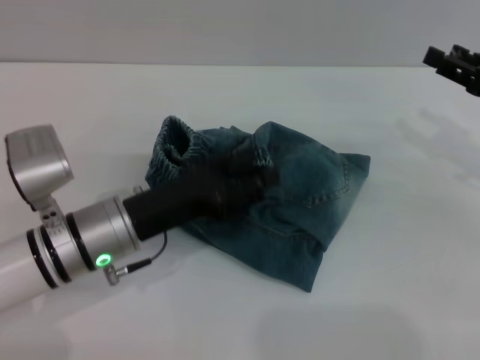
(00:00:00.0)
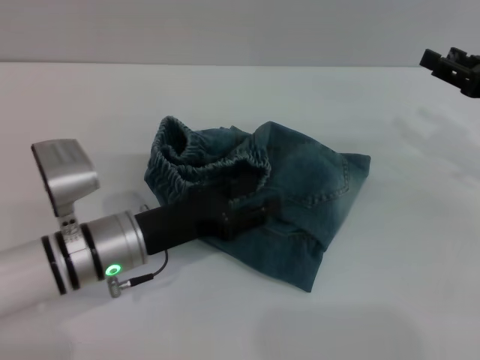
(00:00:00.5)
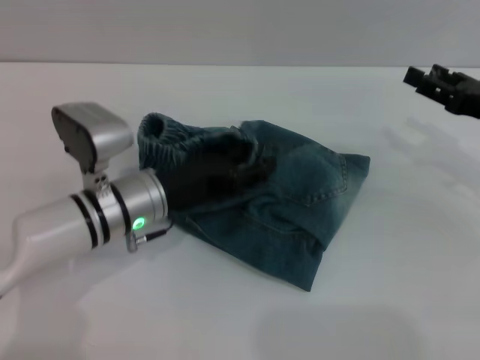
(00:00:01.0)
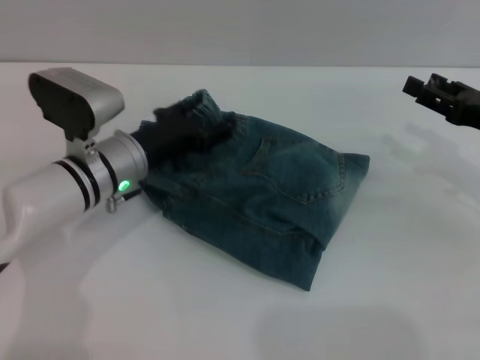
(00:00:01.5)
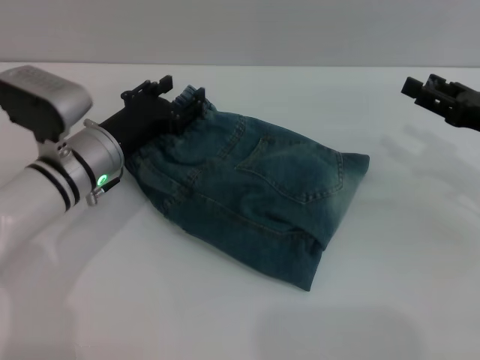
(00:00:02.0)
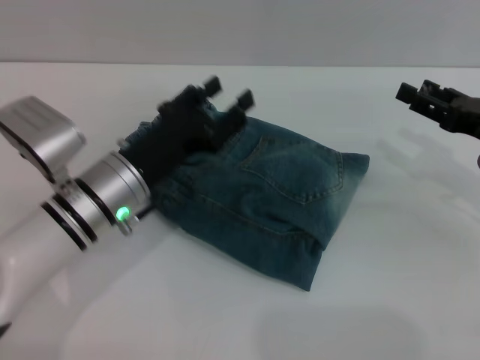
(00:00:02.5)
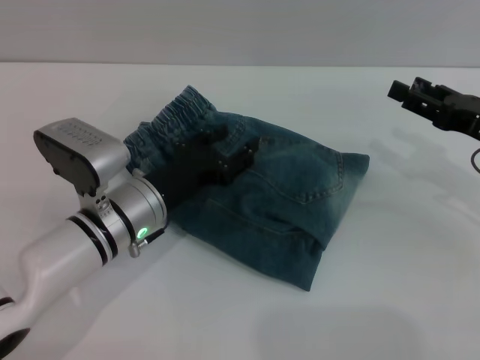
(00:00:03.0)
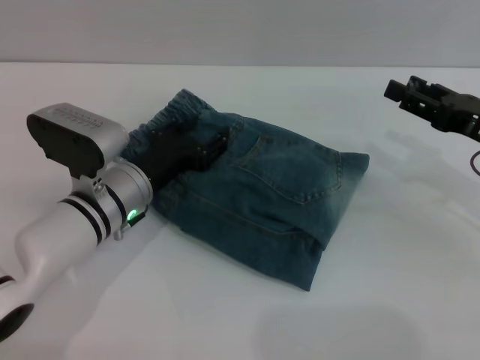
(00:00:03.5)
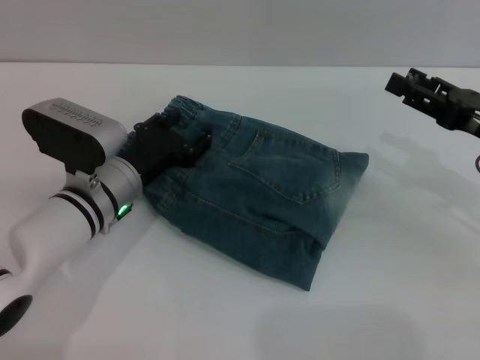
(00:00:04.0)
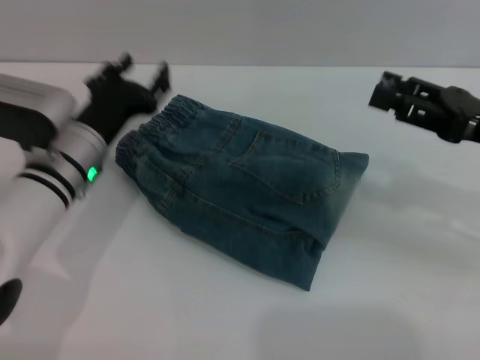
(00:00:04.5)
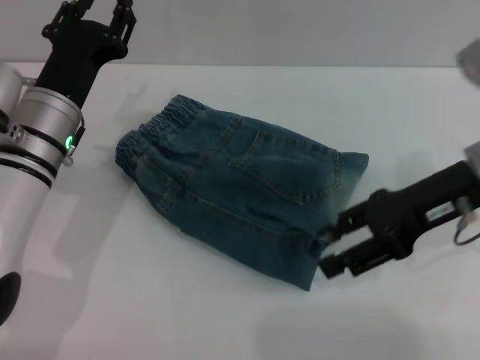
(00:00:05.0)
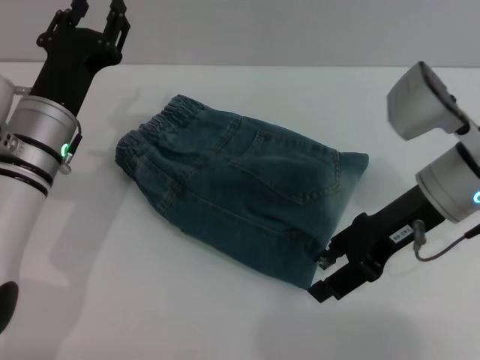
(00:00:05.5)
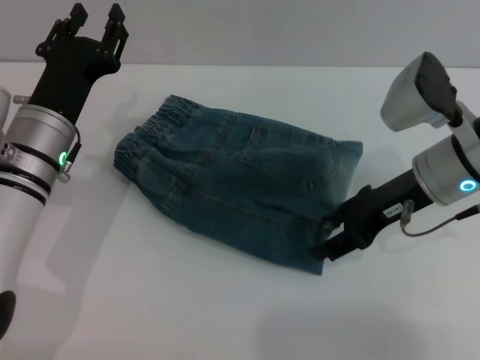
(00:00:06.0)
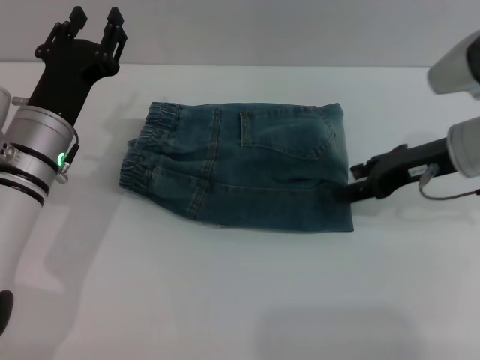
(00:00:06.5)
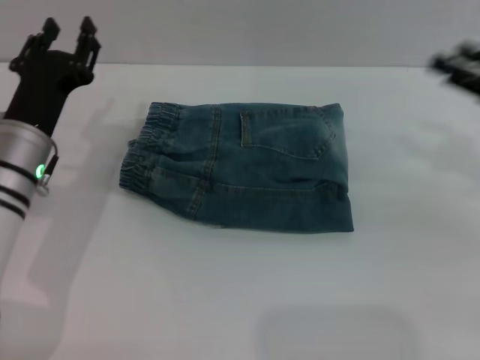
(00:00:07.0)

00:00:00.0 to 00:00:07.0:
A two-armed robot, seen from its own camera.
Step, 00:00:00.0 to 00:00:06.5: Place the folded trousers onto the center area with the right grippers.
00:00:00.0 to 00:00:02.0: The left gripper shifts approximately 10 cm forward.
00:00:03.5 to 00:00:05.0: The left gripper heads upward, covering roughly 5 cm. The right gripper is displaced to the left and upward by roughly 10 cm.
00:00:05.0 to 00:00:07.0: The right gripper goes some 10 cm to the right.

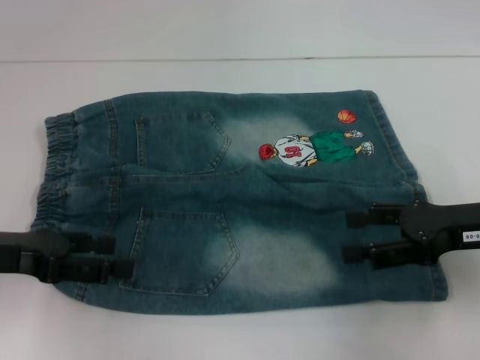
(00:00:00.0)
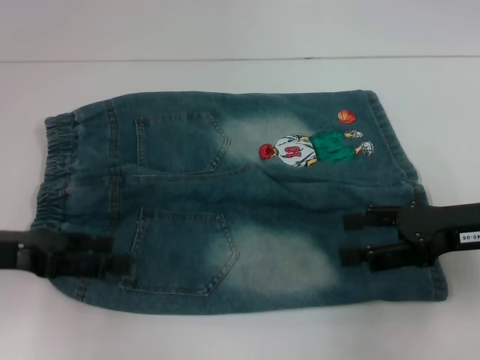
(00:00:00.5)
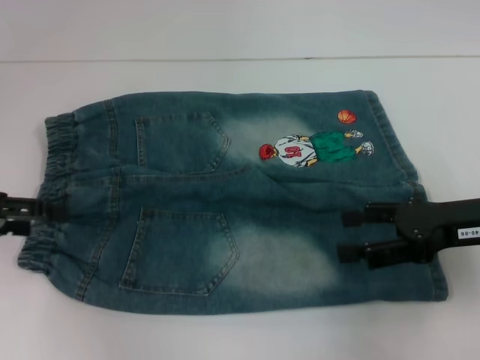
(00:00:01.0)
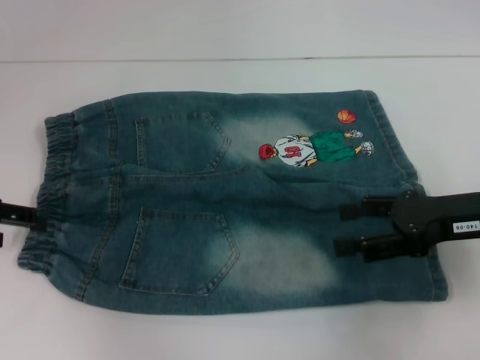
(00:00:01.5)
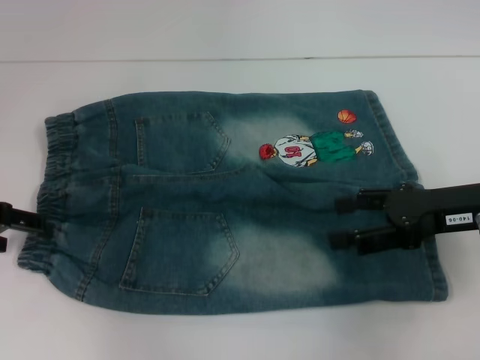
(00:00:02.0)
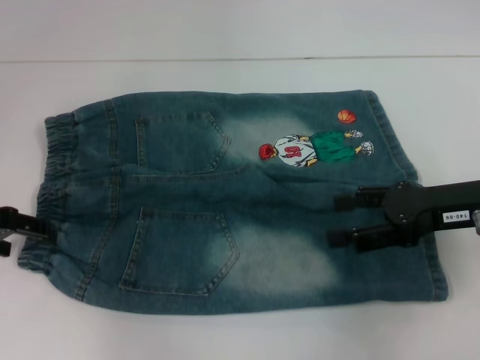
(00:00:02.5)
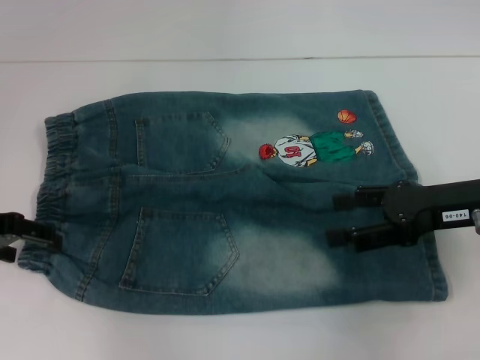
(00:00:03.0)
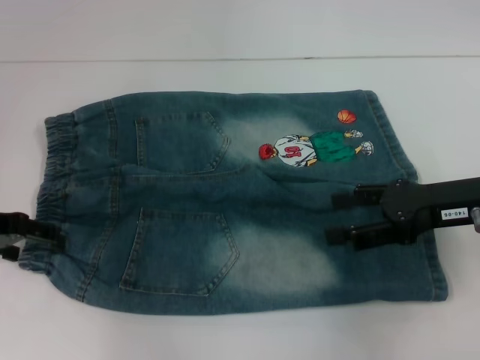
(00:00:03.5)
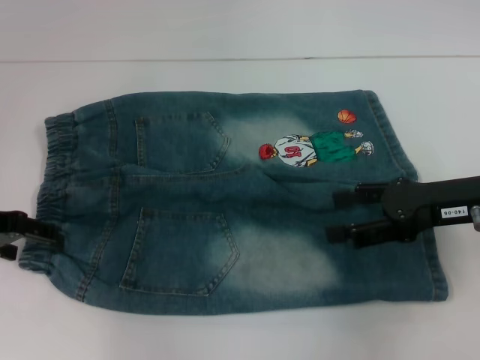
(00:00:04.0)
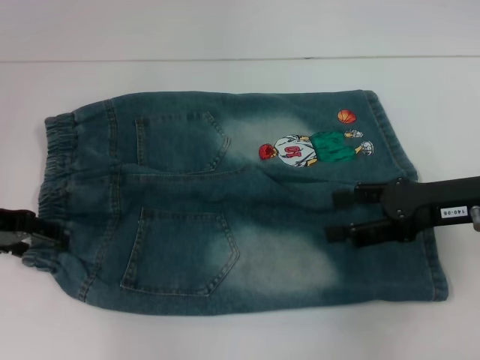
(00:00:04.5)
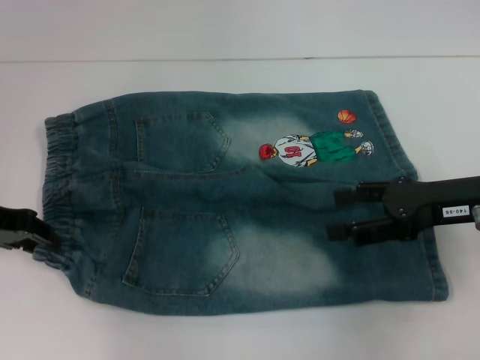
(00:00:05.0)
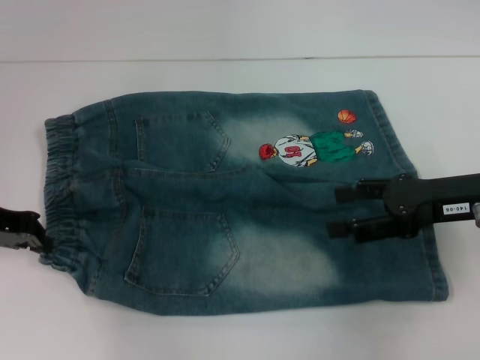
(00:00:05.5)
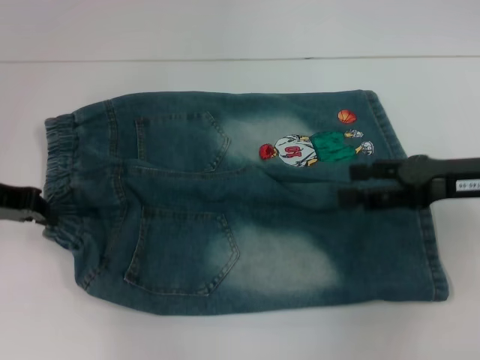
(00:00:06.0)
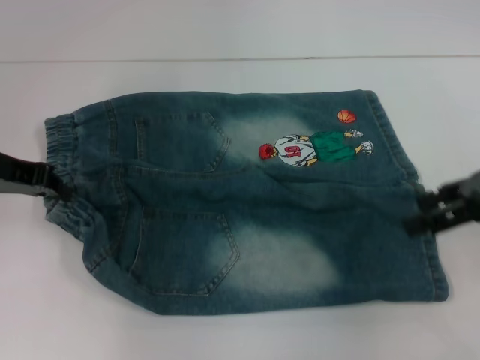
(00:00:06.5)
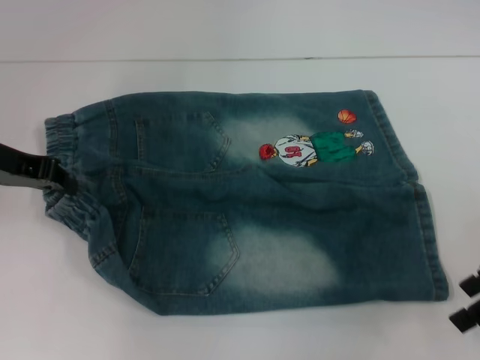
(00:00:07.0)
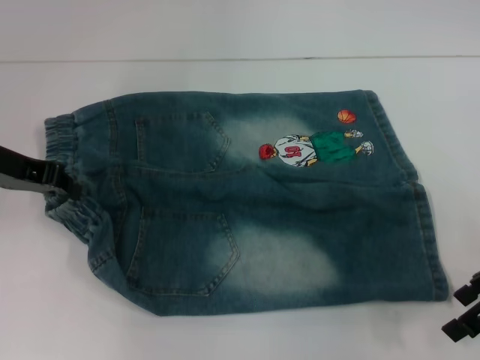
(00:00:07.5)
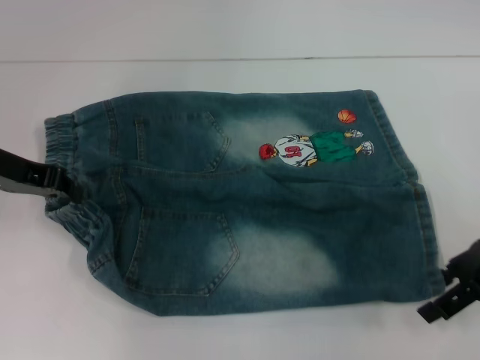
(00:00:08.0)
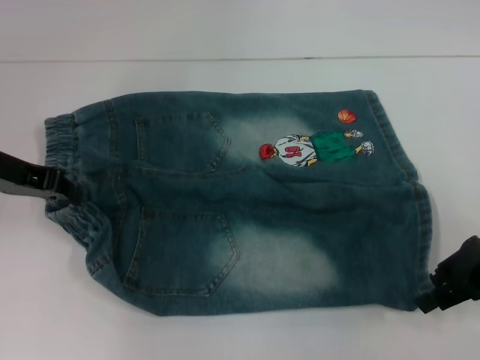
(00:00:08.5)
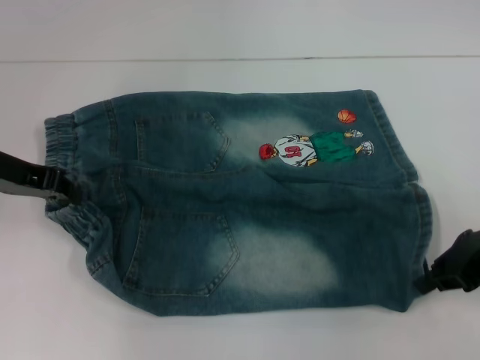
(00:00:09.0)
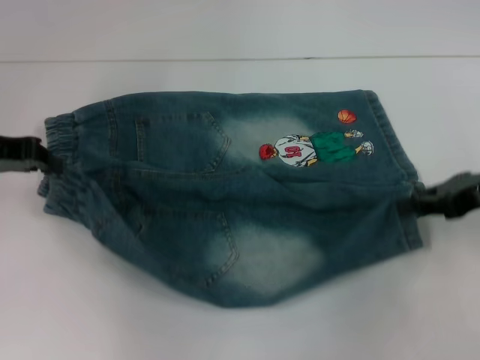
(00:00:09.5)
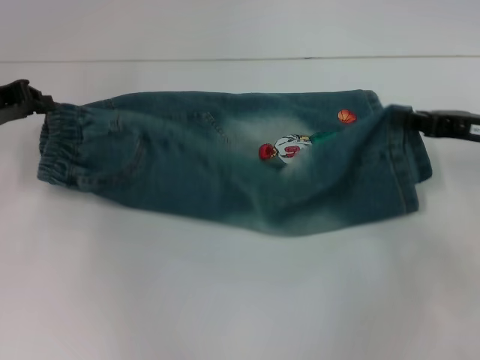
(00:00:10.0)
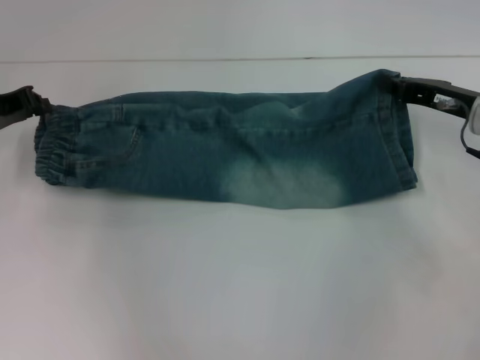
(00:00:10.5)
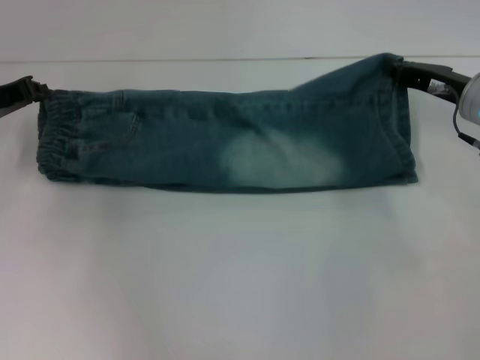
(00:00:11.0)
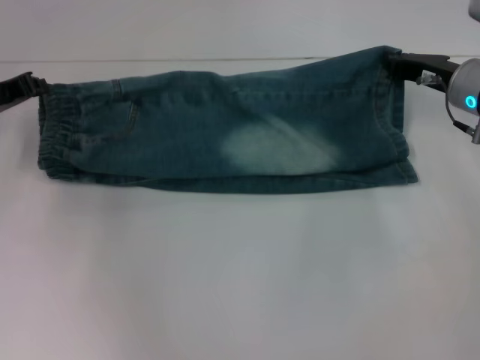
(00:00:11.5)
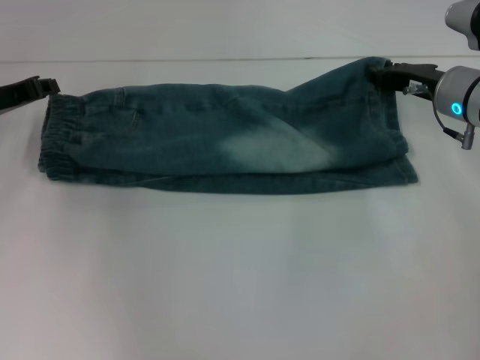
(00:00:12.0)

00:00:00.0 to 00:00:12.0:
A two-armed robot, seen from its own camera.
Step, 00:00:00.0 to 00:00:05.5: Hold the lower left waistband with your left hand.
Step, 00:00:06.0 to 00:00:08.5: Grab the lower right pant leg with your right hand.
00:00:00.0 to 00:00:02.0: The left gripper shifts approximately 5 cm forward.
00:00:02.0 to 00:00:04.0: The grippers stay close to where they were, moving slightly.
00:00:04.0 to 00:00:06.0: The left gripper closes up.
00:00:08.0 to 00:00:10.0: The right gripper closes.
00:00:10.0 to 00:00:12.0: The right gripper shifts approximately 10 cm forward and to the left.

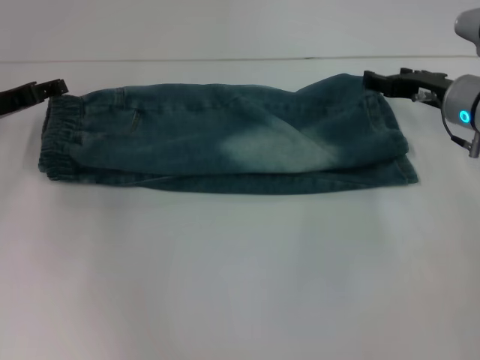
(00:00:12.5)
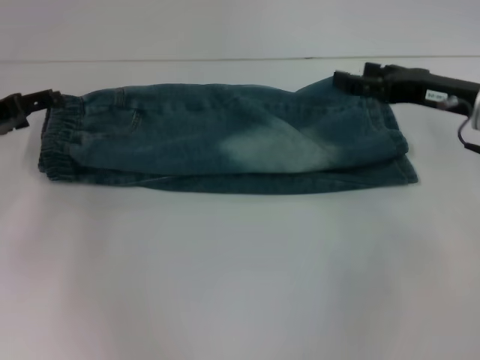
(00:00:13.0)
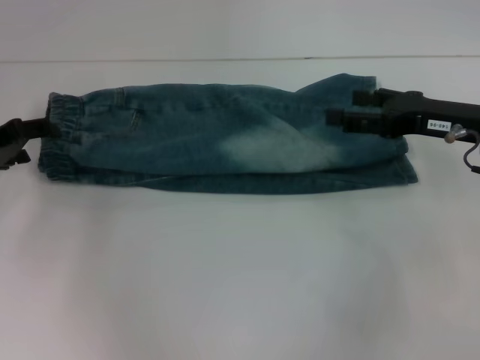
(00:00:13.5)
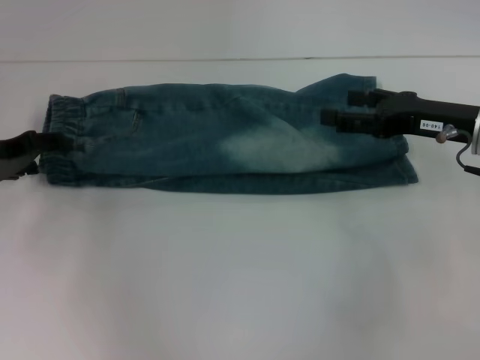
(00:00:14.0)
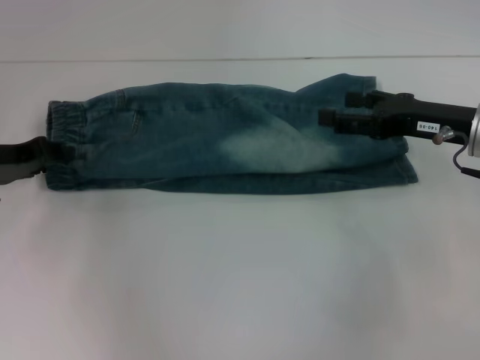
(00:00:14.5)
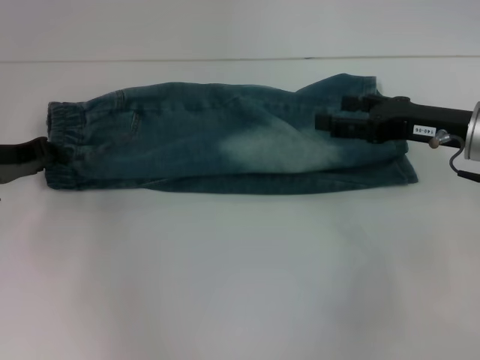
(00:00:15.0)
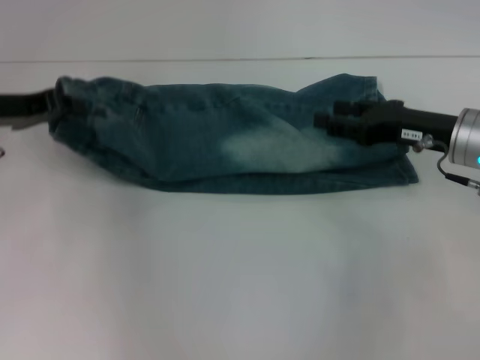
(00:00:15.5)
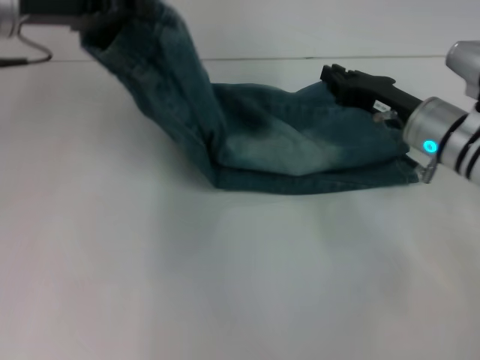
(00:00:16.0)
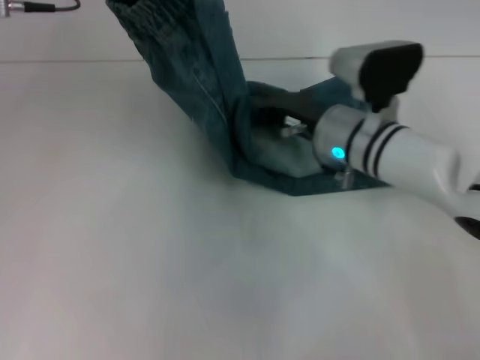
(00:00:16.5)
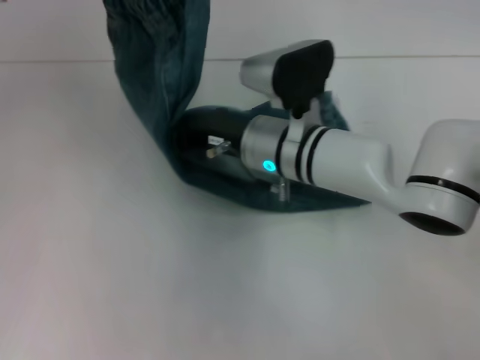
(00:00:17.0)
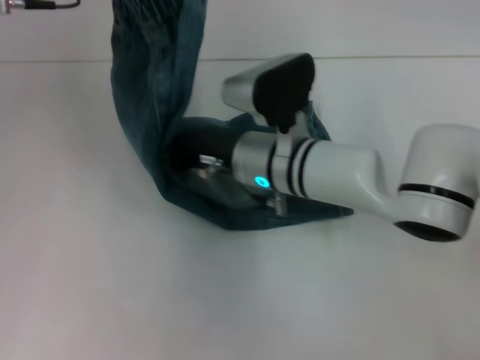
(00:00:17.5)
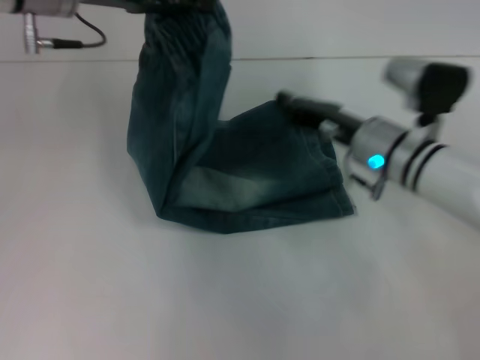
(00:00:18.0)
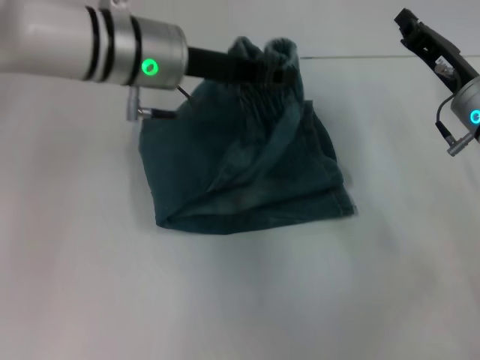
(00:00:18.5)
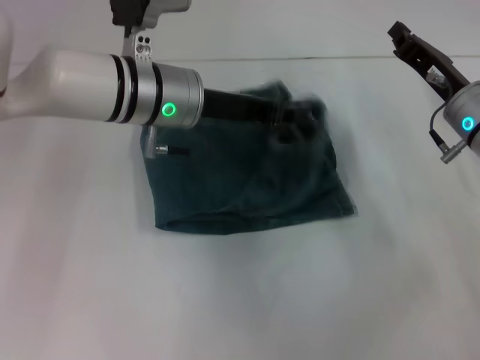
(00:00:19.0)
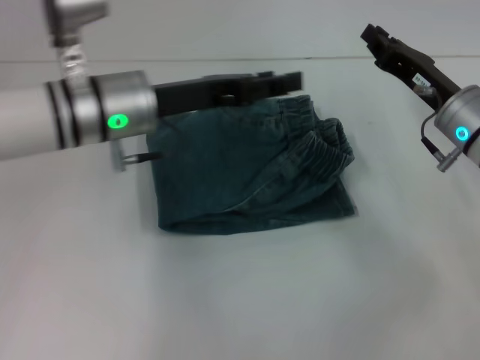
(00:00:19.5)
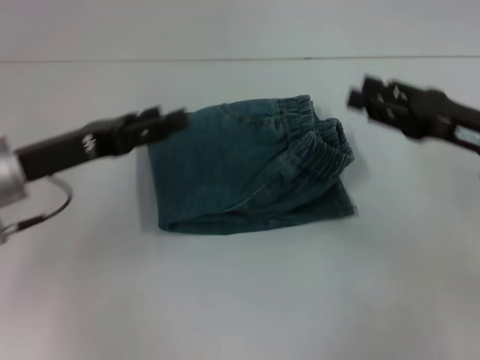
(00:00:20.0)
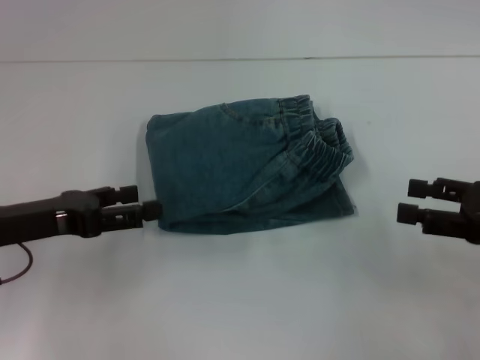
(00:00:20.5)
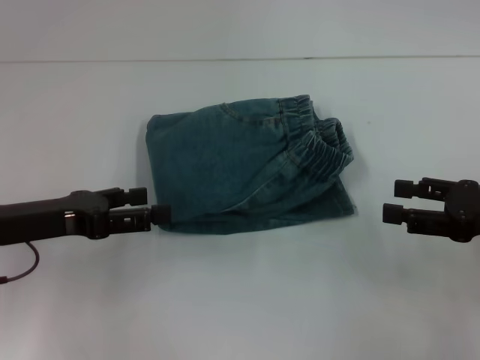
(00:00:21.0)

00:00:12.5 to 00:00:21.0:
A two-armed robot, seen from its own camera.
Step, 00:00:12.5 to 00:00:15.0: Hold the waistband with your left hand.
Step, 00:00:15.5 to 00:00:17.0: Press the middle of the pants with your right hand.
Step, 00:00:17.5 to 00:00:19.0: Fold to the right with your left hand.
00:00:12.5 to 00:00:14.5: The right gripper goes roughly 5 cm backward, and opens.
00:00:14.5 to 00:00:16.5: The left gripper is displaced upward and to the right by about 20 cm, and closes up. The right gripper is displaced to the left by some 15 cm, and closes up.
00:00:16.5 to 00:00:19.0: The left gripper is displaced downward and to the right by about 15 cm. Meanwhile the right gripper moves to the right, about 10 cm.
00:00:19.0 to 00:00:21.0: The left gripper moves to the left and backward, some 20 cm, and opens up. The right gripper heads backward and to the right, covering approximately 15 cm, and opens up.
